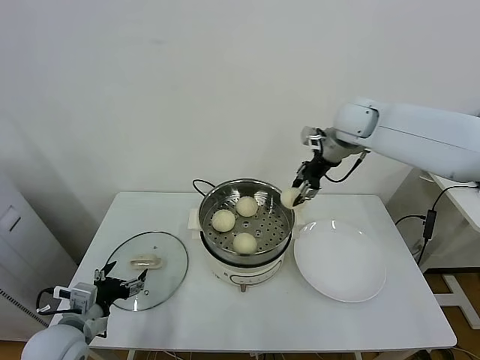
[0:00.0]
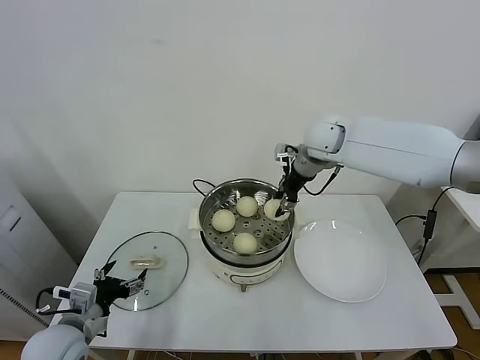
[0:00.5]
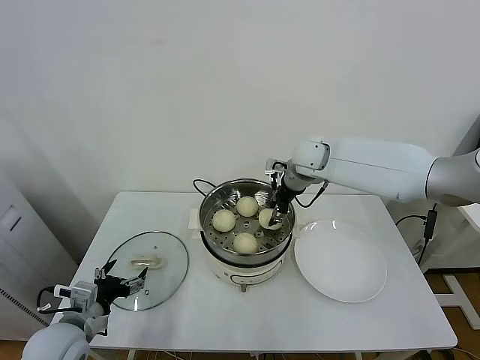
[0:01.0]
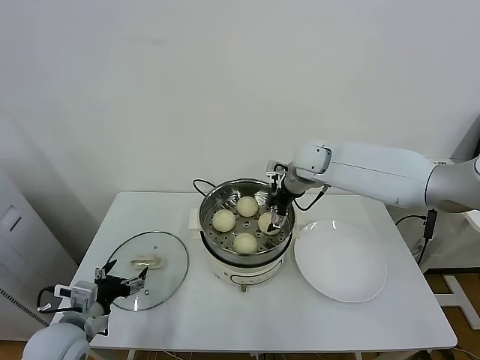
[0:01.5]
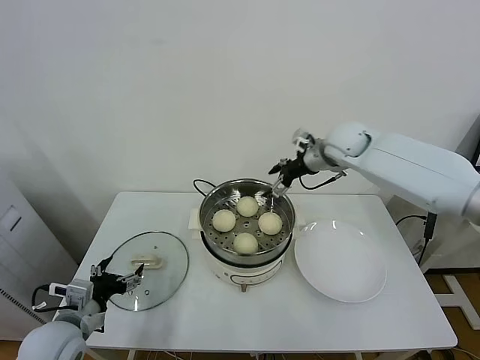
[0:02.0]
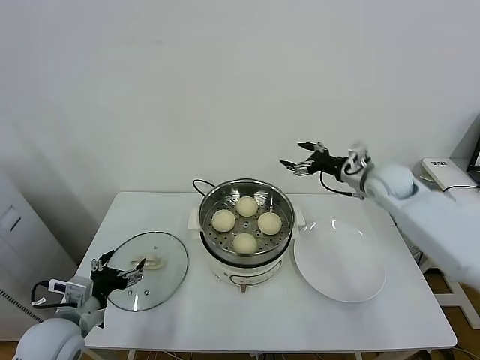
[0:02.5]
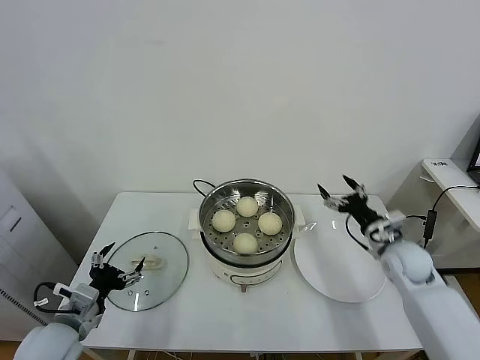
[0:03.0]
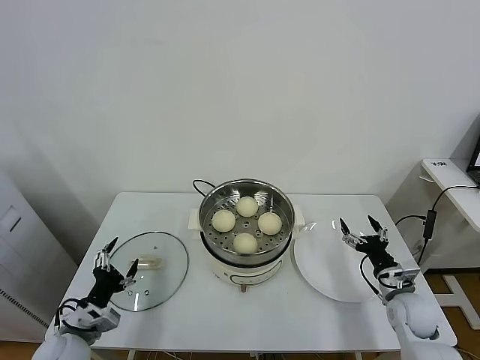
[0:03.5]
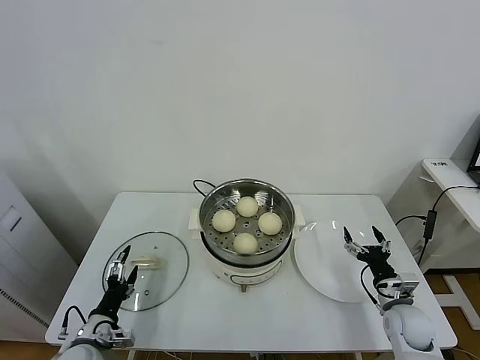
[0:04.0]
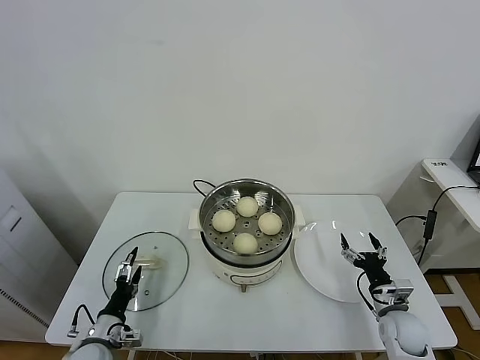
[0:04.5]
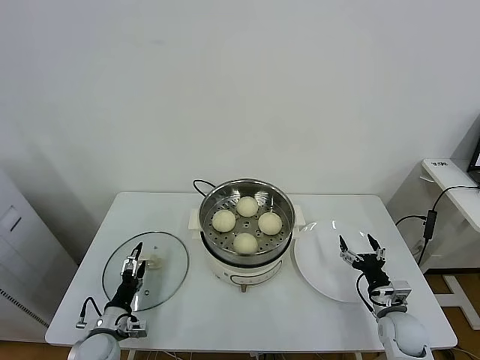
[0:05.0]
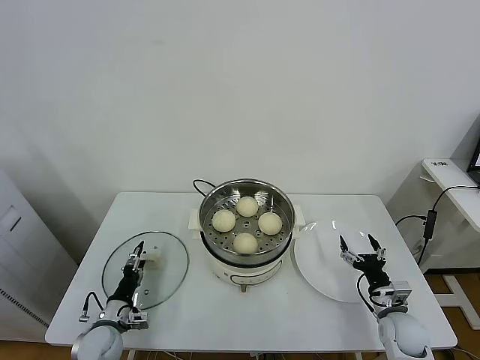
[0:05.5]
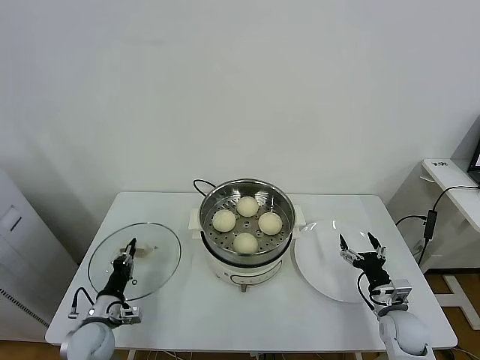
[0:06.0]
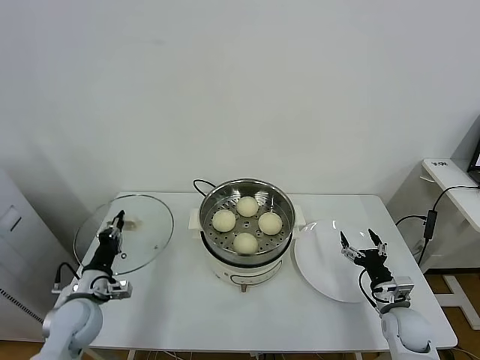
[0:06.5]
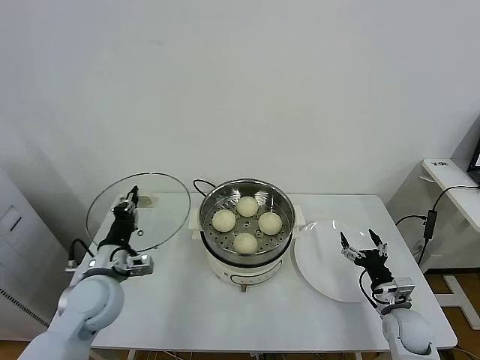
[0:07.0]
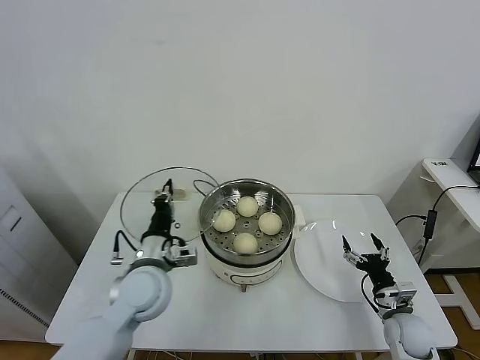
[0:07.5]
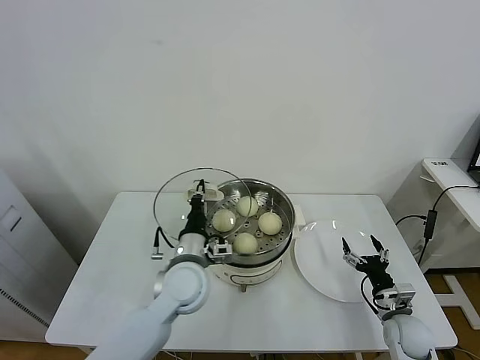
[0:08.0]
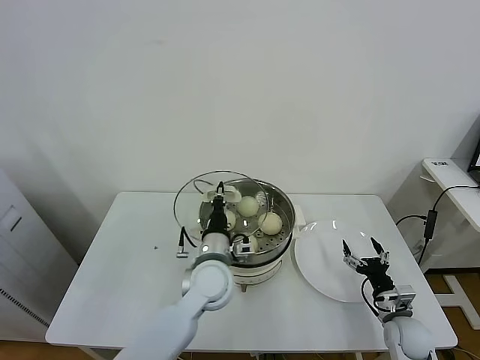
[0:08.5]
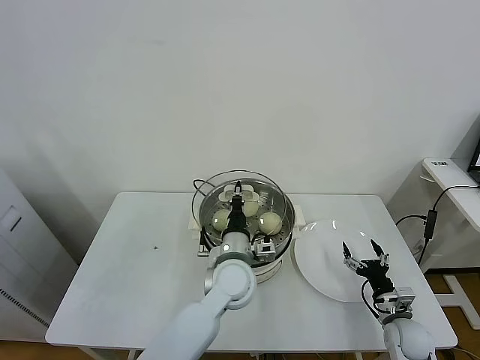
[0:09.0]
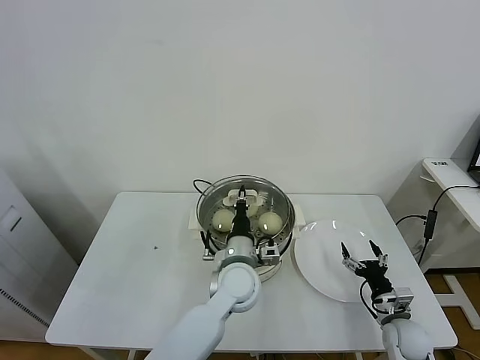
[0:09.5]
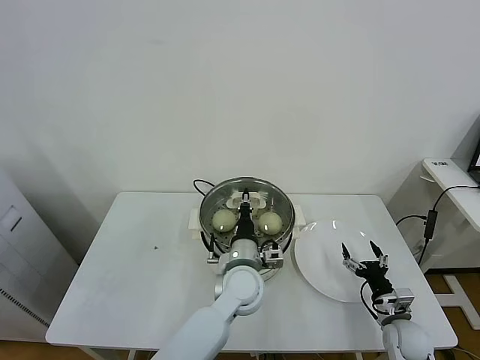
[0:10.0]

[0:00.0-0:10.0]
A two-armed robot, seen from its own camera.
Task of the whole recording: take steamed baozi put them in steamer.
Step, 0:02.0 to 0:06.0: Grasp the pot lid with left gripper.
0:00.0 to 0:02.0: The right gripper moves downward, about 5 cm, and opens up.
0:02.0 to 0:04.0: The left gripper moves downward, some 10 cm. The right gripper moves downward, backward and to the right, about 40 cm.
0:04.0 to 0:06.0: The left gripper travels forward by about 5 cm, and closes up.
0:06.0 to 0:08.0: The left gripper is displaced to the right and upward by approximately 30 cm.
0:08.0 to 0:10.0: The left gripper goes some 10 cm to the right.

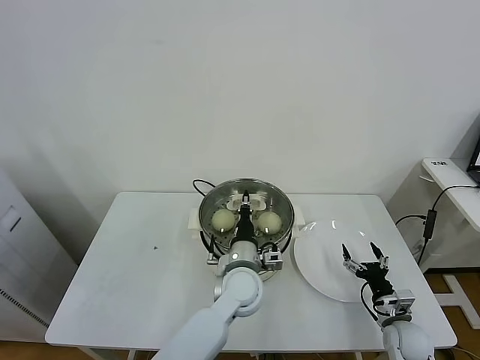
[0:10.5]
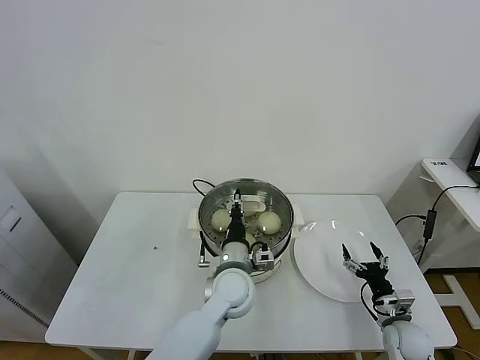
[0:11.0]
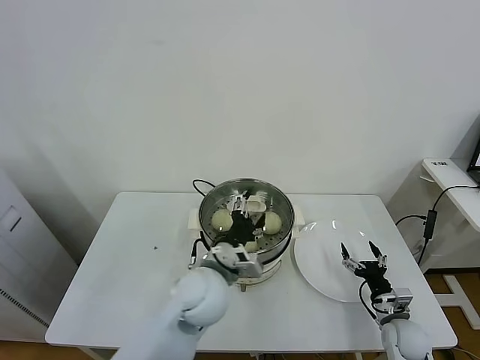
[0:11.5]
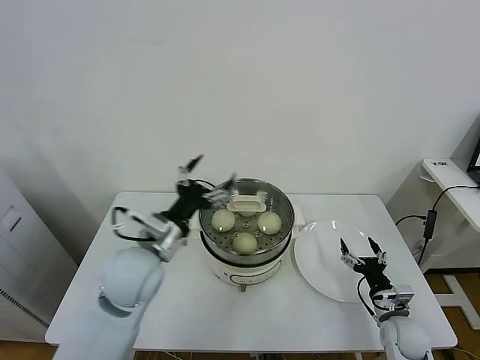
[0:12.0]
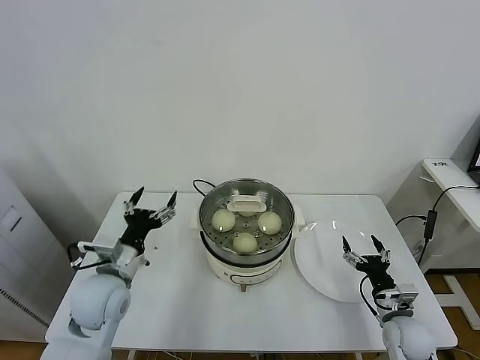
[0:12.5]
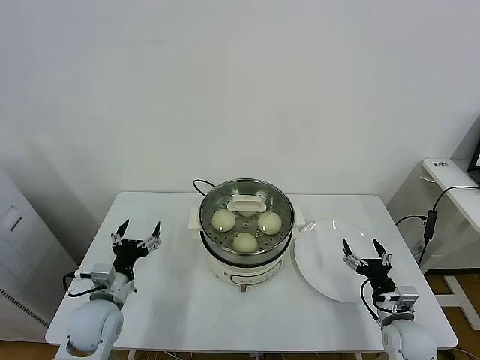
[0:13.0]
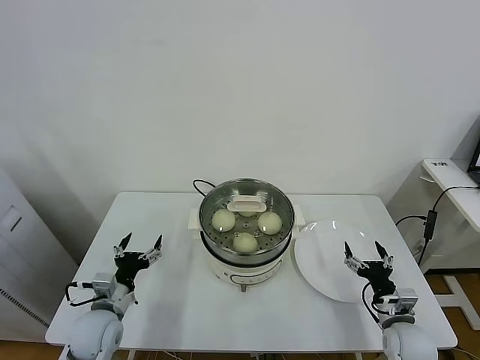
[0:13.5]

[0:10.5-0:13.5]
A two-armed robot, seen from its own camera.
Task of the whole recording: take steamed baozi put them in steamer.
0:10.5 to 0:12.0: The left gripper is displaced to the left and upward by some 20 cm, and opens.
0:12.0 to 0:13.5: The left gripper shifts some 20 cm downward and to the left.

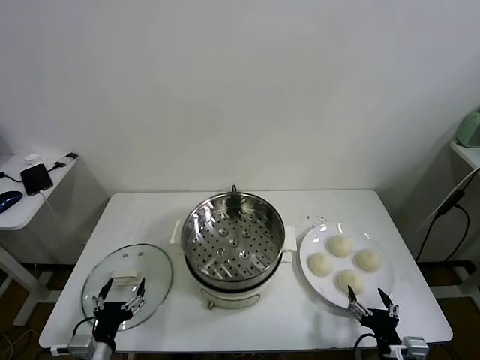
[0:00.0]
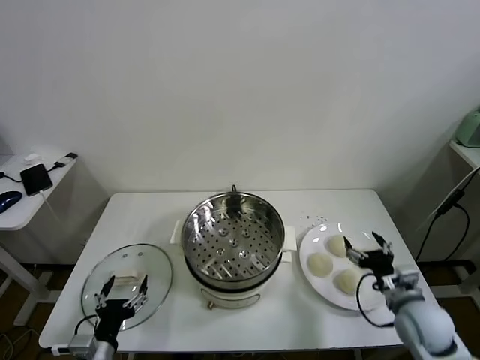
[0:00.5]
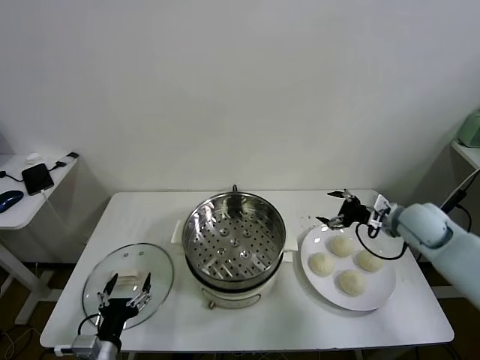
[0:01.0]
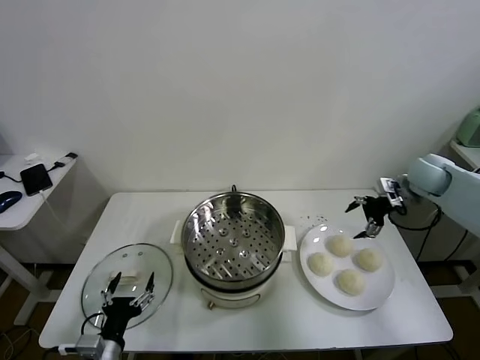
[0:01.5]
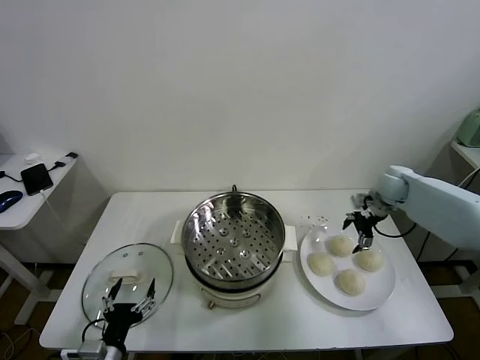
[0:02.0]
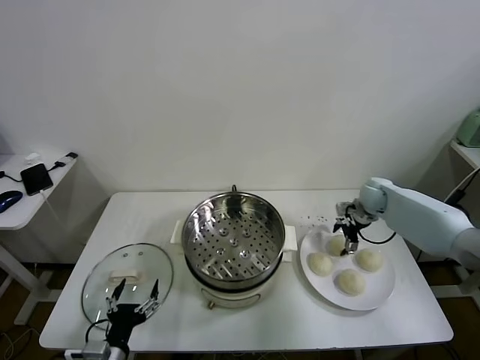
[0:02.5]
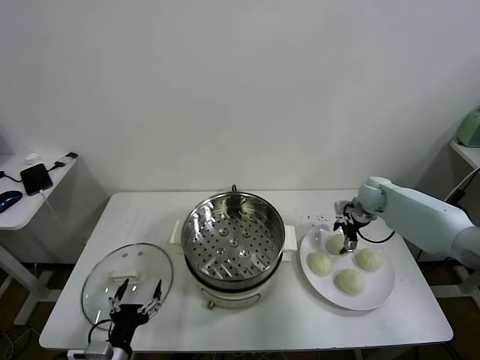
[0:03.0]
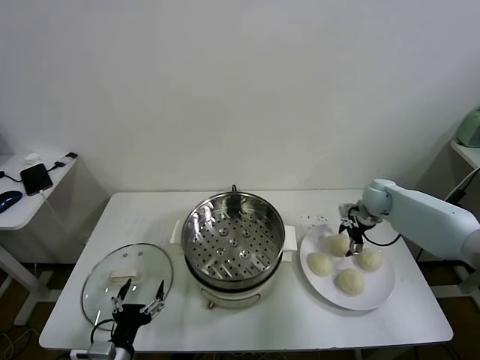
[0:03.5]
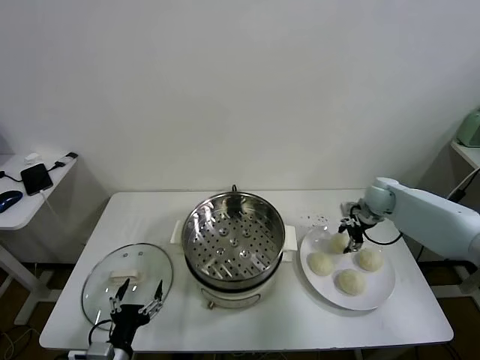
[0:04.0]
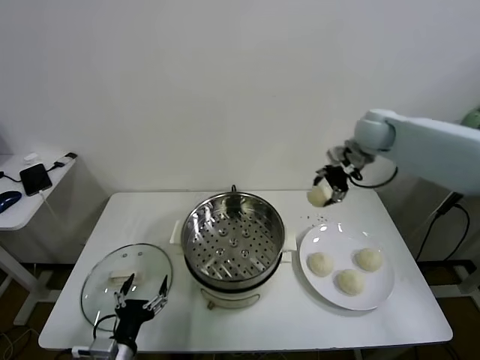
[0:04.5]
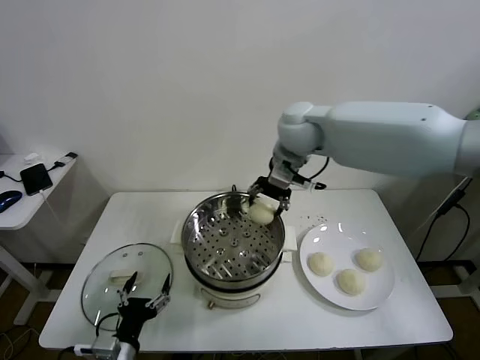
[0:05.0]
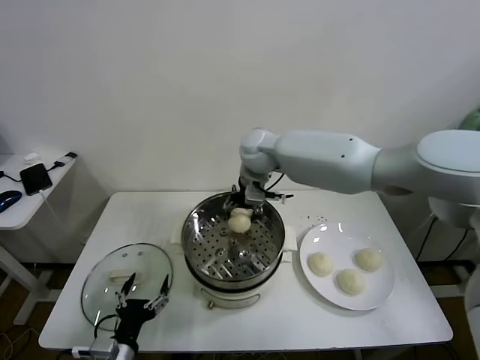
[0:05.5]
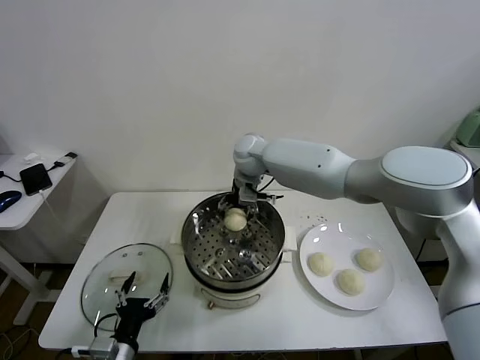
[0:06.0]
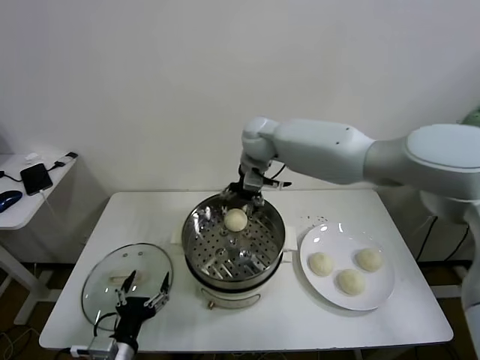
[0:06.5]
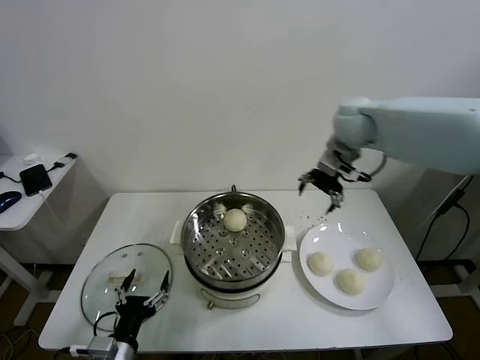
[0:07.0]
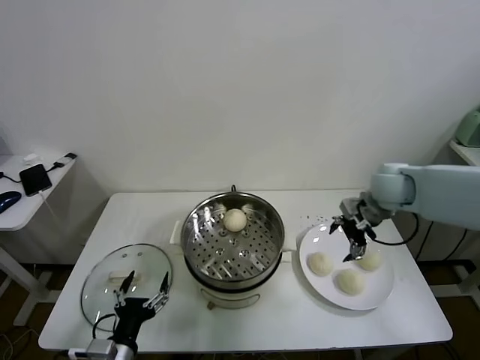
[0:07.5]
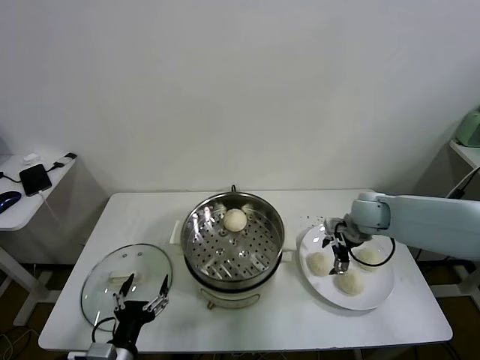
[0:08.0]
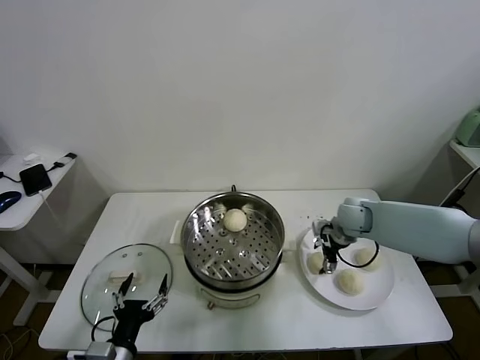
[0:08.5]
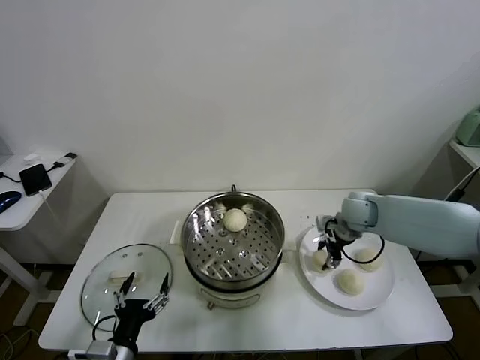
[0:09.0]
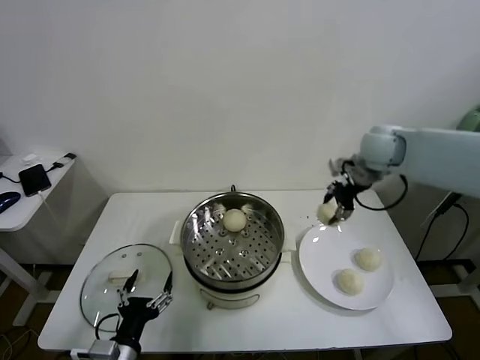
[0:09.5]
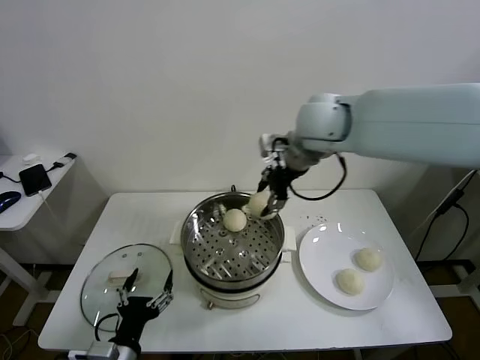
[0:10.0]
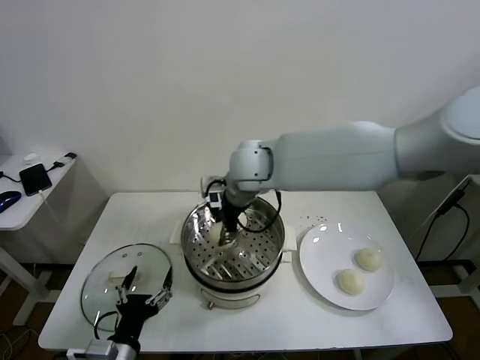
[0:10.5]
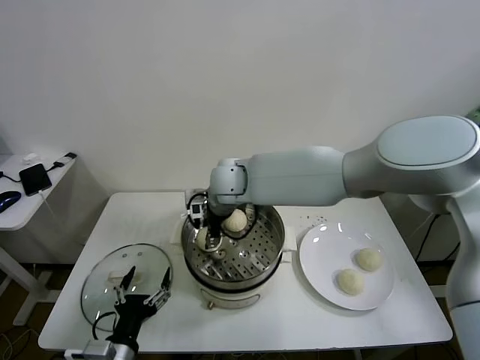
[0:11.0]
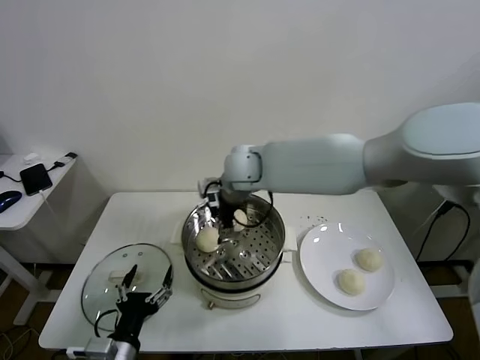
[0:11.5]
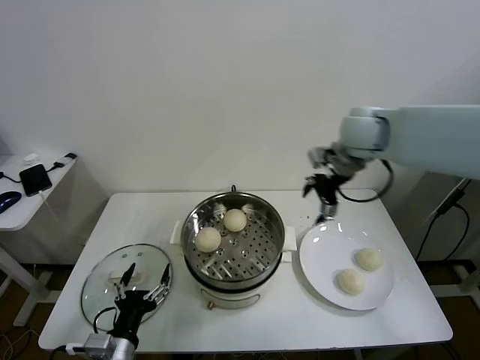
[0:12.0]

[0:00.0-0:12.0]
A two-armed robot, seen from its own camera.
Task of the whole recording: take steamed baozi put them in steamer.
Step, 0:00.0 to 0:03.5: Grasp the baozi in the plate with right gripper.
Step, 0:04.0 to 0:06.0: Place the baozi on the steamer with right gripper.
Step, 0:06.5 to 0:08.5: Grasp the baozi in the plate with right gripper.
Step, 0:09.0 to 0:11.0: Place the baozi on the steamer with right gripper.
0:02.0 to 0:04.0: The right gripper closes up.
0:04.0 to 0:06.0: The right gripper goes about 35 cm to the left, and opens its fingers.
0:06.0 to 0:08.0: The right gripper shifts approximately 30 cm to the right.
0:08.0 to 0:10.0: The right gripper is displaced upward and to the left by about 30 cm, and closes its fingers.
0:10.0 to 0:12.0: The right gripper moves to the right, approximately 15 cm, and opens.
